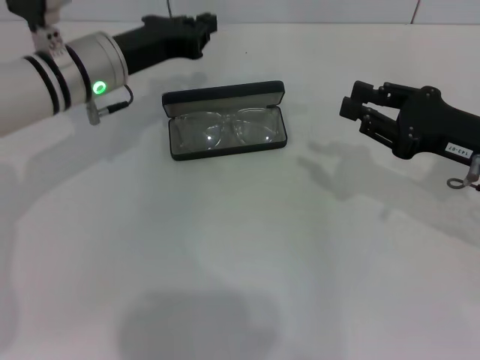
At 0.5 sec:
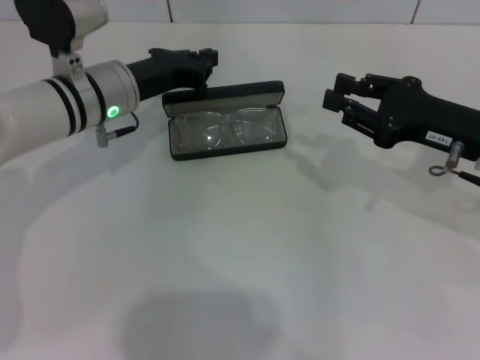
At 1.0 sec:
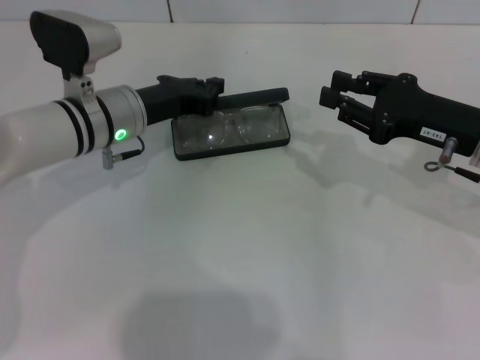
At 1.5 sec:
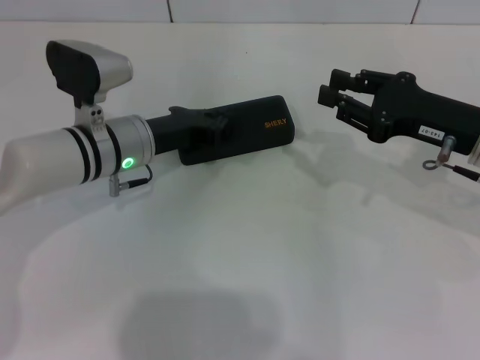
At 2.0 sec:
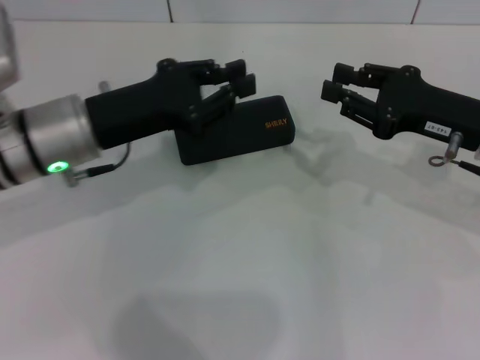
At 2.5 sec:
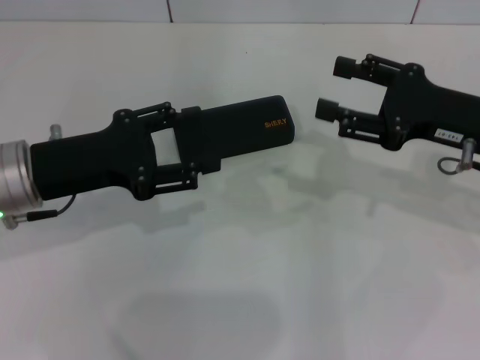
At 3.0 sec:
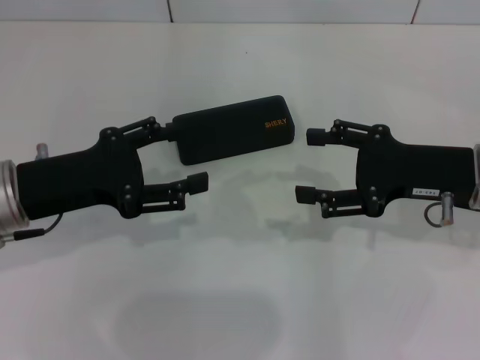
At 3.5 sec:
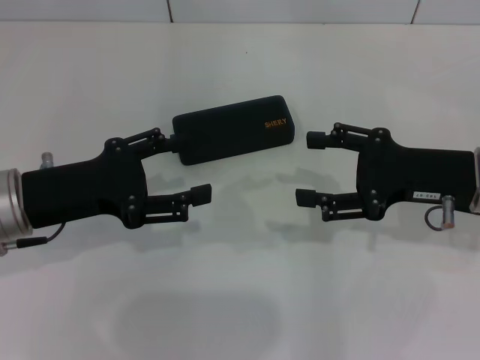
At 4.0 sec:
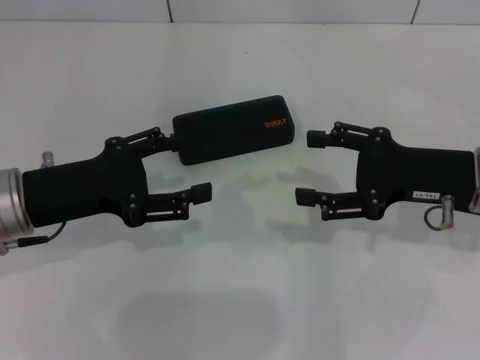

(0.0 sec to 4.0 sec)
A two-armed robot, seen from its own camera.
0.0 sec - 2.0 sec: The left gripper goes some 10 cm backward.
2.0 sec - 4.0 sec: The right gripper opens, while the left gripper travels backward by approximately 5 cm, and opens its fingers.
